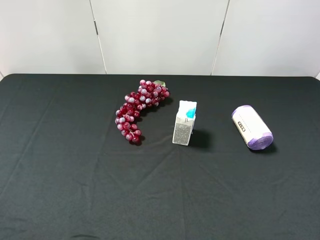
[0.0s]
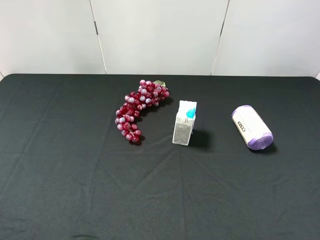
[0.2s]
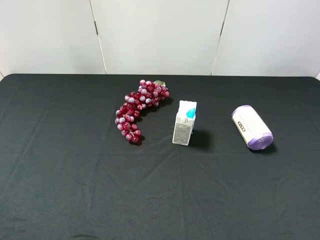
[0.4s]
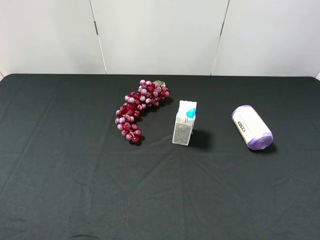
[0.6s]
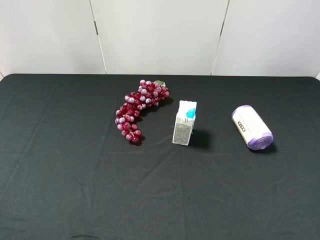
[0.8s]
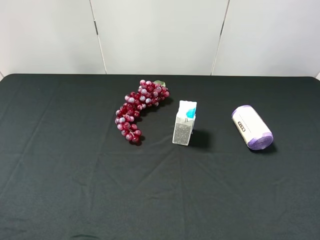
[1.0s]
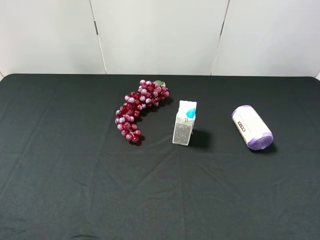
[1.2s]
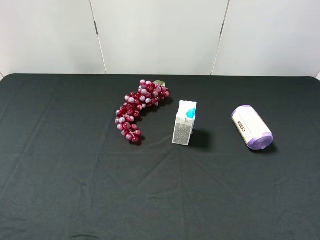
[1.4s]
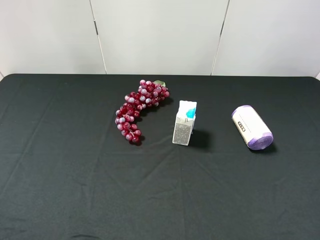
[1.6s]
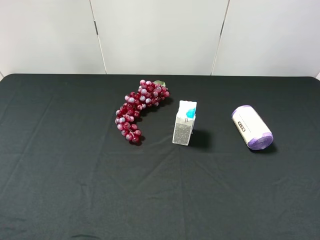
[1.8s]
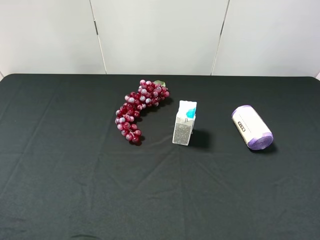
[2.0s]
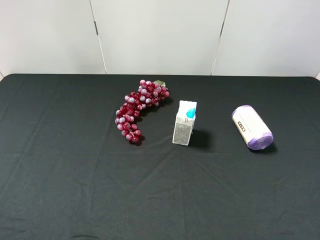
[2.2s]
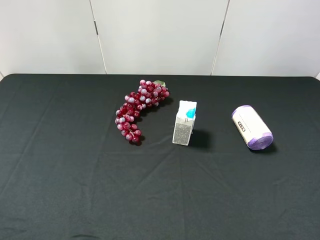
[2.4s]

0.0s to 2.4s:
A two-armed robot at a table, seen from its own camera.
Task of the whole recording: use the left gripper to pick up the item and transfer it from the left gripper to the right gripper.
1.2s to 2.4s: The two grippers keep their place.
